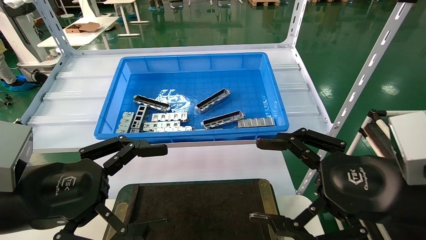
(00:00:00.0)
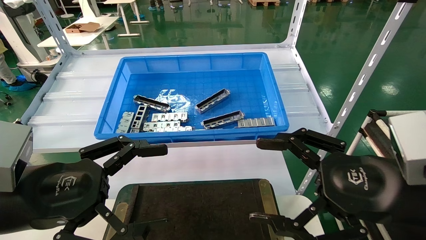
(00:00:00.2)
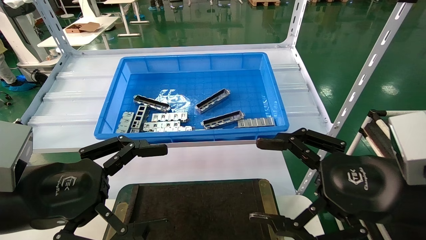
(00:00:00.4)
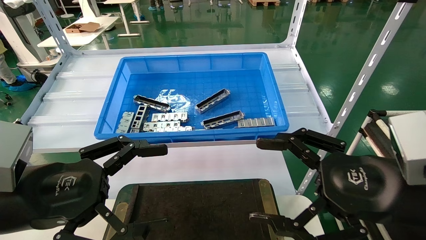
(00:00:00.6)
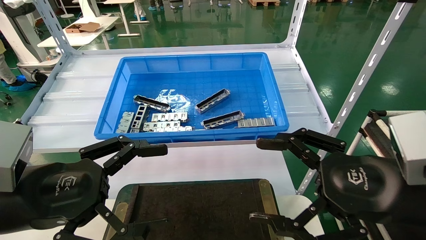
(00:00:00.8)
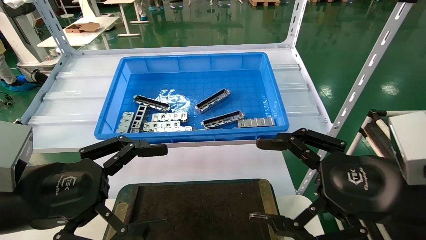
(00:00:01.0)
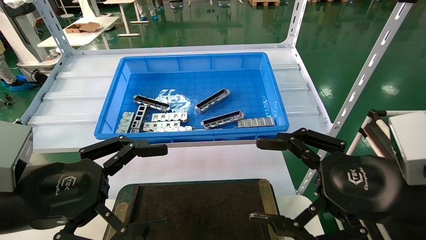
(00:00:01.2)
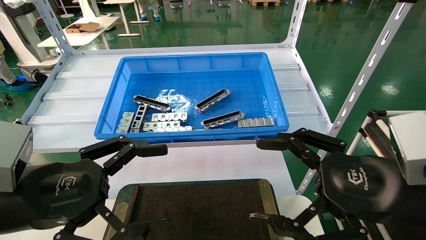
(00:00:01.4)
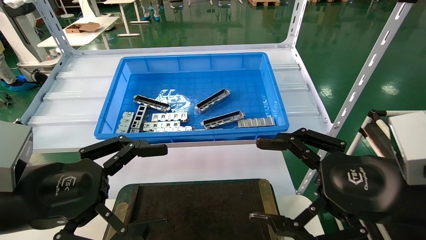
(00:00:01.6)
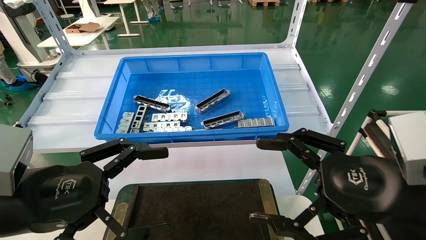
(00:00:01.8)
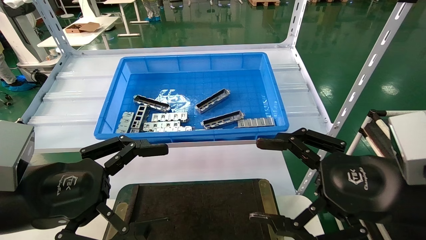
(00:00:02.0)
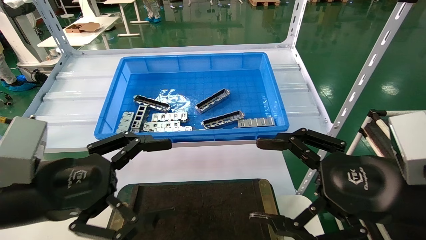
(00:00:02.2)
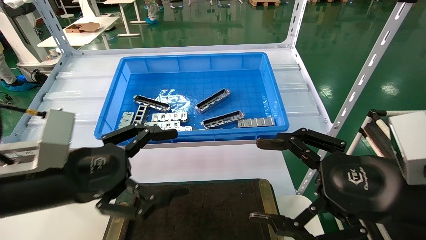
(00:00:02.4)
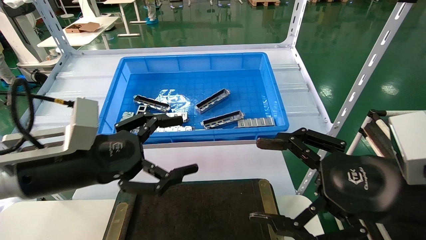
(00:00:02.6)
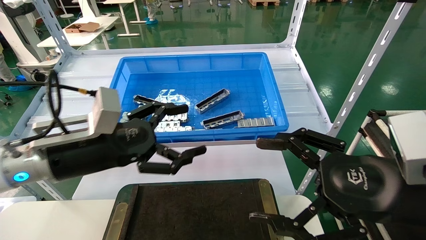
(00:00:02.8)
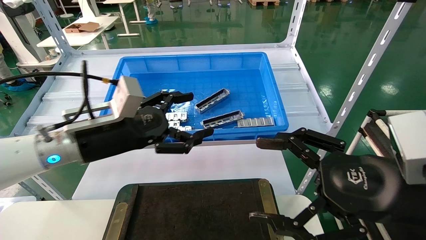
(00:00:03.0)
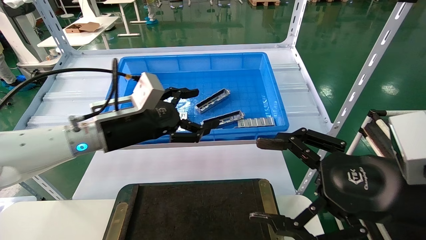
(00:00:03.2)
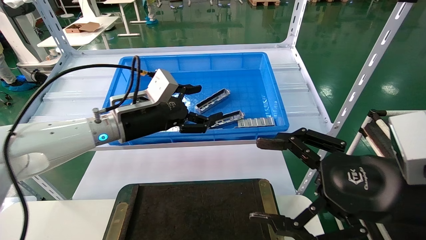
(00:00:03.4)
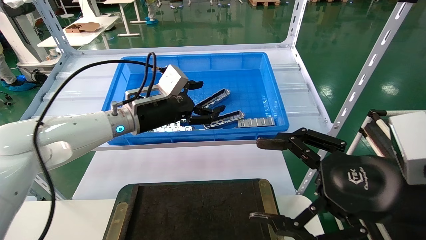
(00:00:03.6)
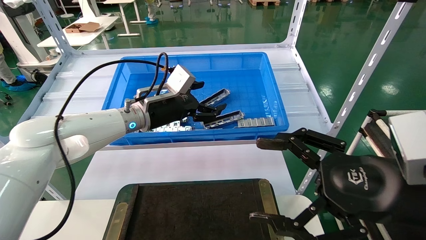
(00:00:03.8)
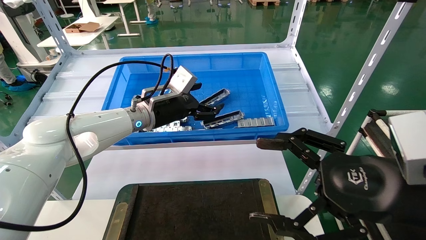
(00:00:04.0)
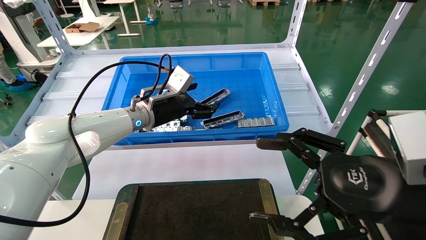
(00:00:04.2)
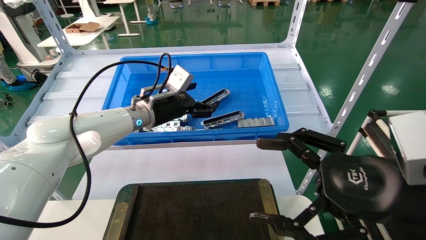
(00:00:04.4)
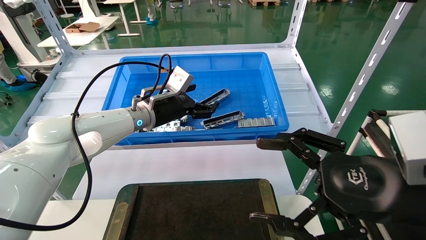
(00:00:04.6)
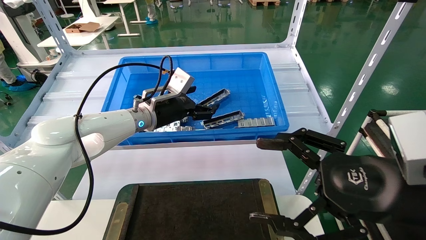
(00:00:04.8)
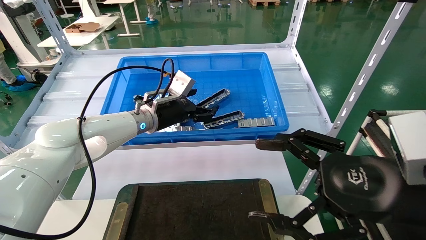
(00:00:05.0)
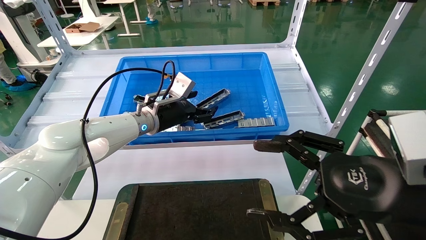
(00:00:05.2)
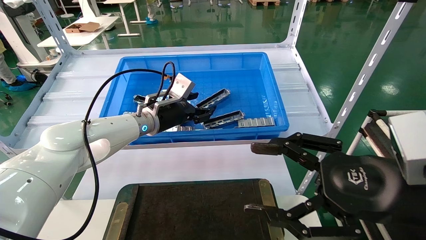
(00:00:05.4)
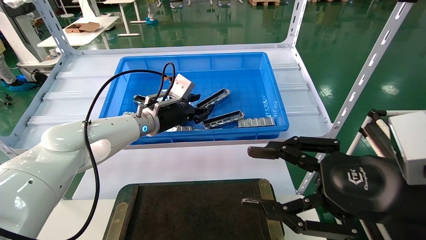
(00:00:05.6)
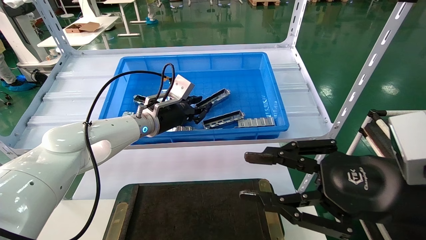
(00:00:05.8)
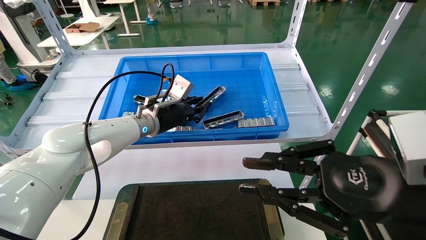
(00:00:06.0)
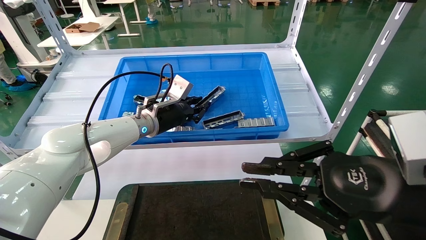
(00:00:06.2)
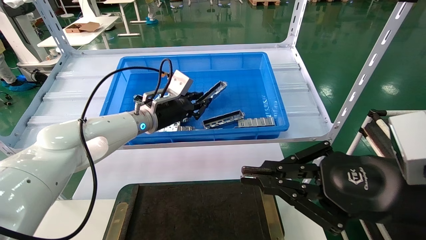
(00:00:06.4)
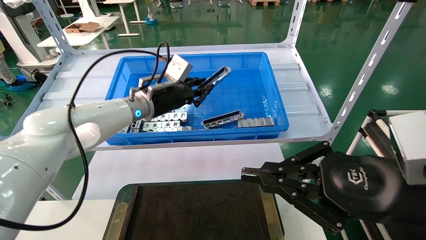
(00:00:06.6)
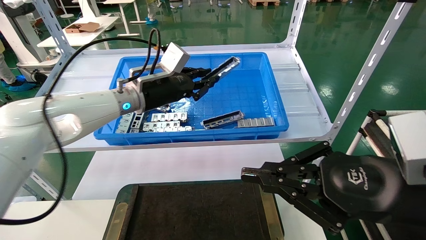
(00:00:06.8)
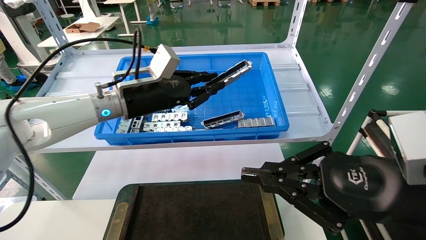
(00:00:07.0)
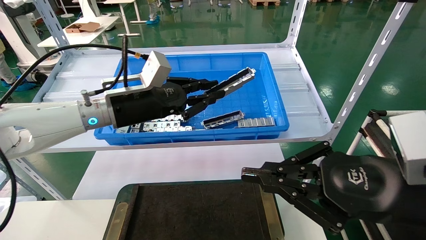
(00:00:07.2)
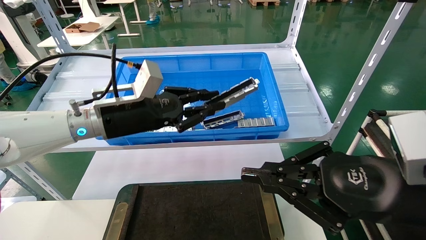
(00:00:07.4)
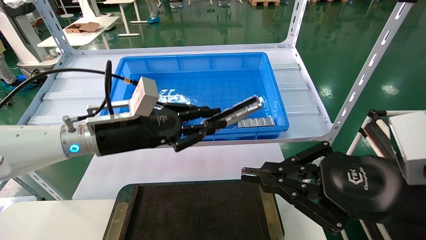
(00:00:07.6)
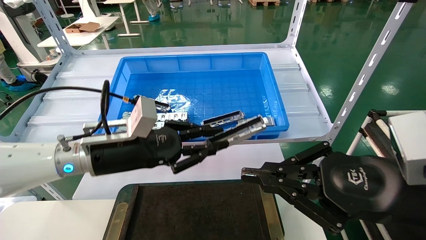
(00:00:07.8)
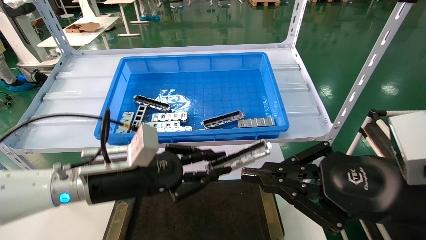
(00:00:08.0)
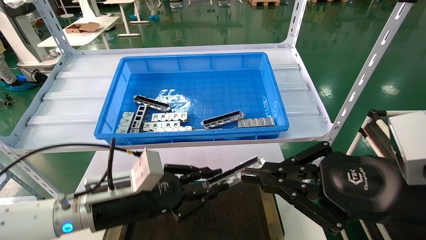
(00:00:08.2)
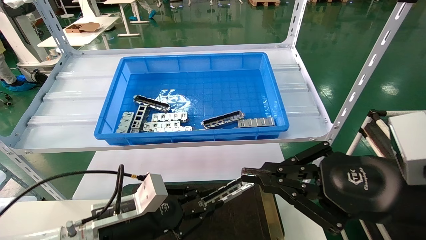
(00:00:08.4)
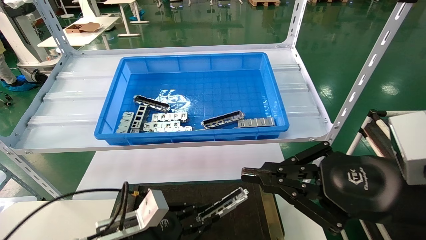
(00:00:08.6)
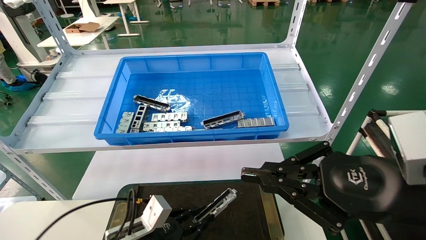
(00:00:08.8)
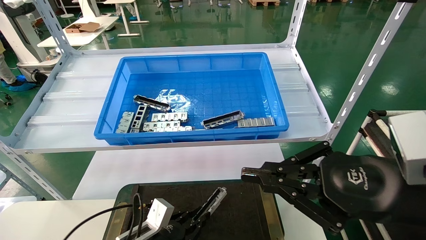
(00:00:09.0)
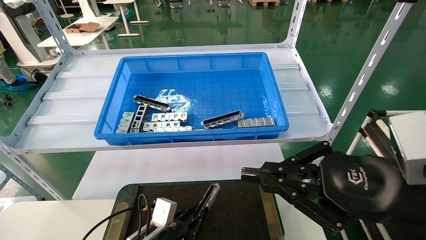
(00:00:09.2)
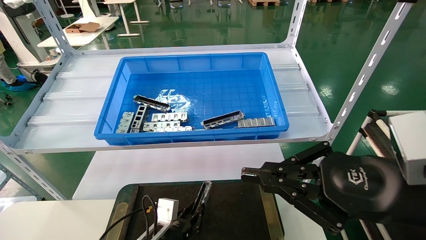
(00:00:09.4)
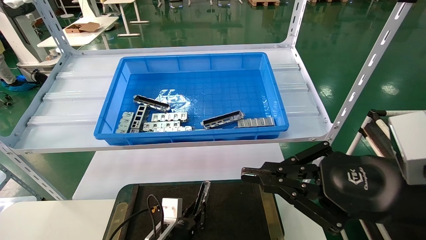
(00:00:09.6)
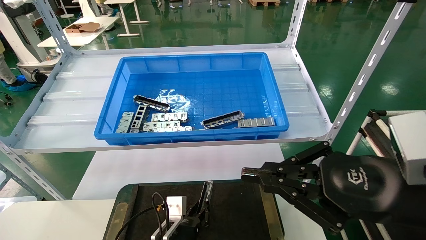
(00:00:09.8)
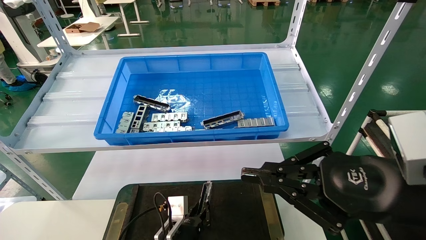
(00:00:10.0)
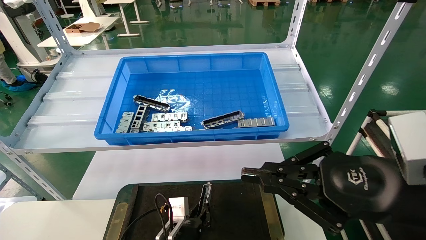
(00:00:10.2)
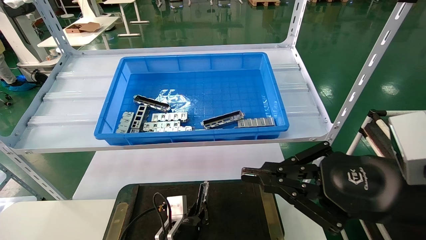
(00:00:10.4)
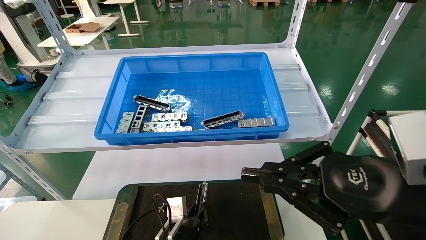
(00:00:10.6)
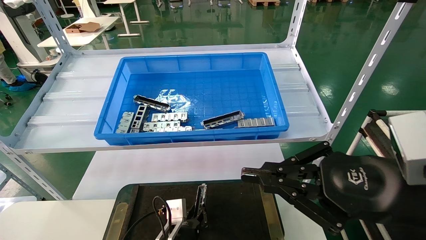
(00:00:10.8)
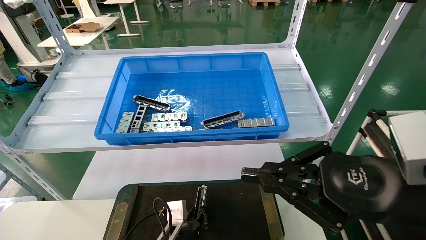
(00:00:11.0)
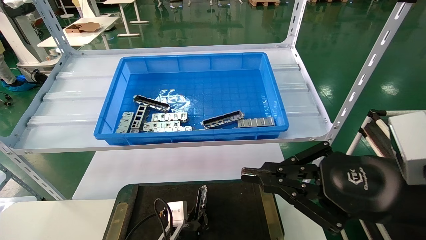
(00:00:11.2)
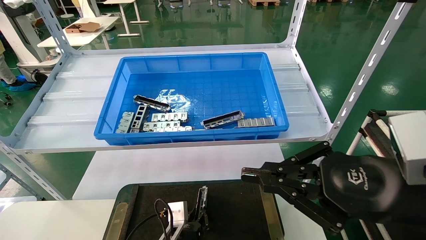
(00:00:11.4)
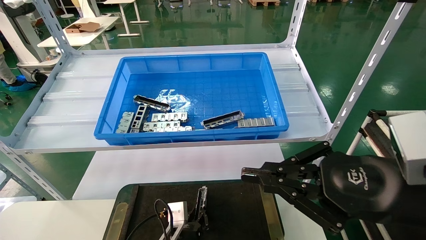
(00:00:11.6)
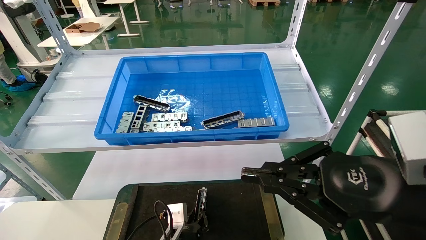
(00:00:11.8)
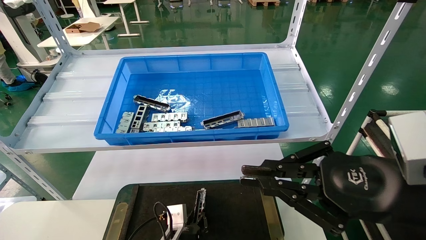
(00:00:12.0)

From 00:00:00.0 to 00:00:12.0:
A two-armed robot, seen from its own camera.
Task of the whole recording: Grasp the part with one hand and place it on the black container.
Step, from 00:00:02.0 to 00:00:06.8: Pick up the front USB bracket from the feeding area.
From 00:00:00.0 to 00:00:01.6: Both grippers stay about where they are.
From 00:00:01.6 to 00:00:03.0: The left gripper moves forward, about 15 cm.
From 00:00:03.0 to 00:00:04.4: The left gripper shifts about 15 cm forward.
From 00:00:04.4 to 00:00:06.0: The left gripper closes its fingers. Meanwhile the right gripper closes its fingers.
From 00:00:06.0 to 00:00:07.6: The left gripper shifts roughly 15 cm backward; the right gripper closes.
From 00:00:07.6 to 00:00:09.0: The left gripper goes some 25 cm downward.
From 00:00:09.0 to 00:00:10.4: The left gripper travels to the right by about 10 cm.
From 00:00:10.4 to 00:00:12.0: There are only small adjustments of the grippers.

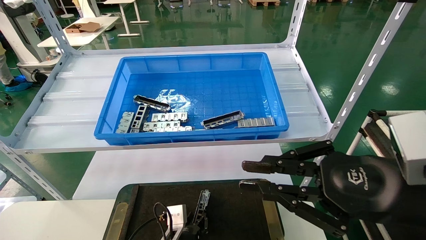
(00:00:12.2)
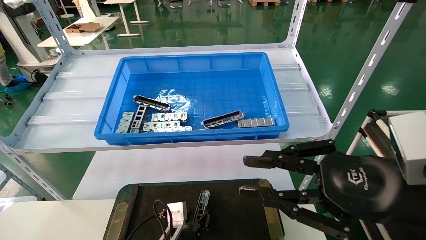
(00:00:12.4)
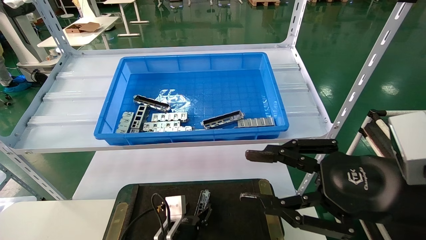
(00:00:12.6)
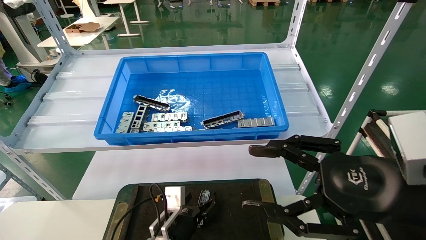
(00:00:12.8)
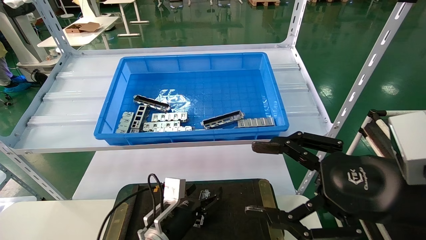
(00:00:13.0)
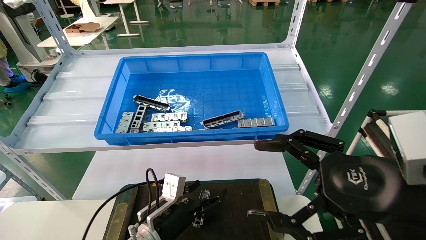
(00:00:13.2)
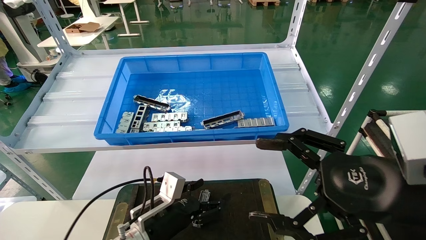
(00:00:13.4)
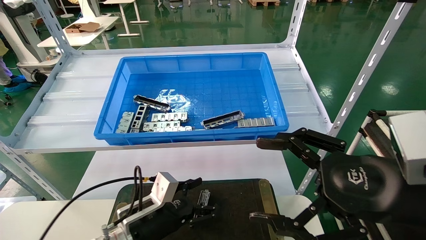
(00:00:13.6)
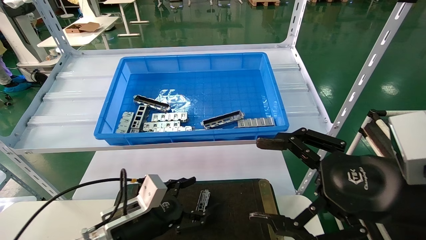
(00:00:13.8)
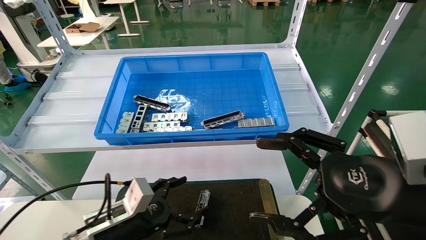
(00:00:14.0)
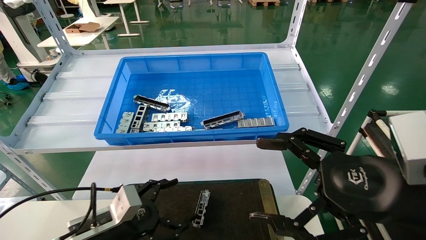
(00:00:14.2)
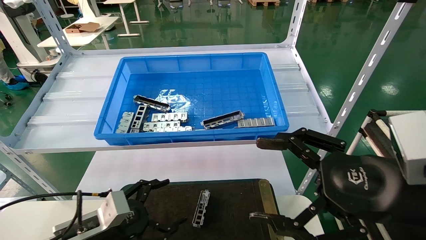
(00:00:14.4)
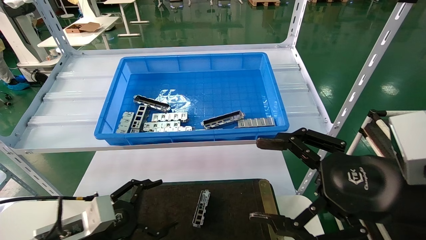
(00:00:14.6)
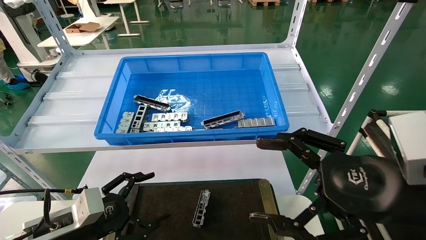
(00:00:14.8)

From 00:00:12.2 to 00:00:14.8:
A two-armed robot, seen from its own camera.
Task of the whole recording: Grasp the part with one hand and place it on the black container.
From 00:00:12.2 to 00:00:13.4: The left gripper heads upward and to the left, covering about 10 cm, and opens up, while the right gripper opens.
From 00:00:13.4 to 00:00:14.8: The left gripper travels to the left by about 15 cm.
